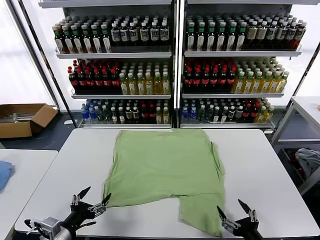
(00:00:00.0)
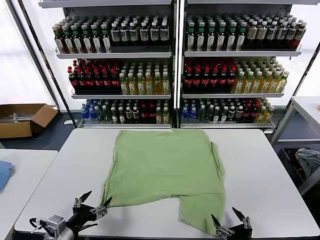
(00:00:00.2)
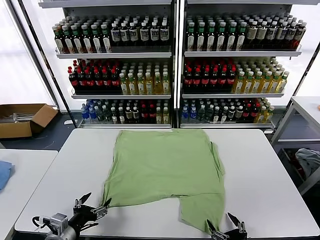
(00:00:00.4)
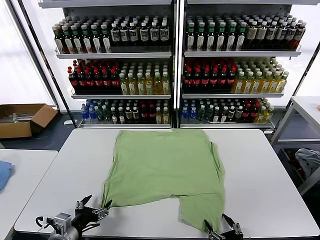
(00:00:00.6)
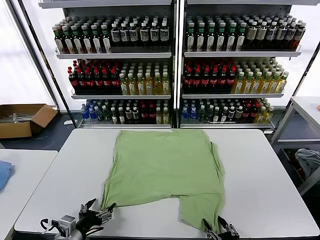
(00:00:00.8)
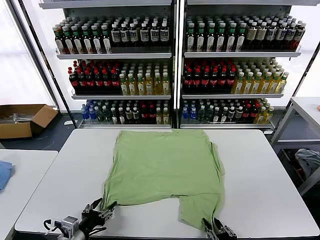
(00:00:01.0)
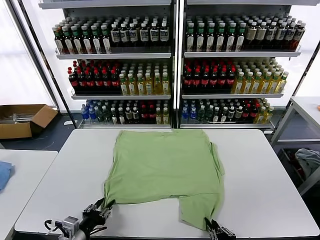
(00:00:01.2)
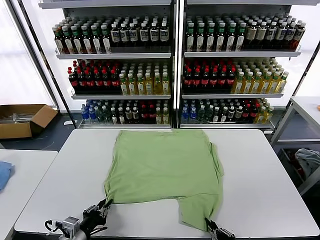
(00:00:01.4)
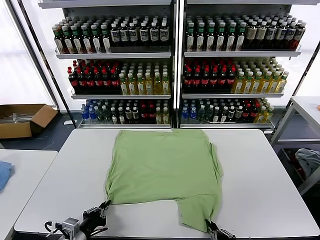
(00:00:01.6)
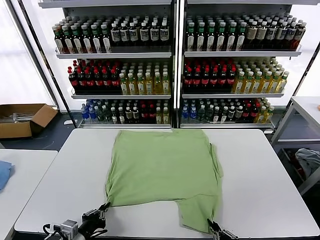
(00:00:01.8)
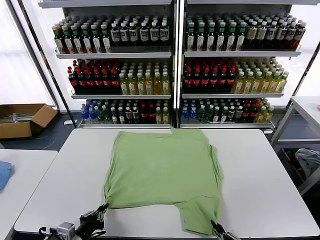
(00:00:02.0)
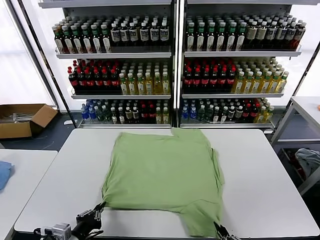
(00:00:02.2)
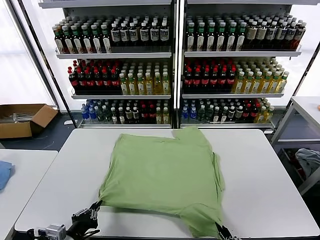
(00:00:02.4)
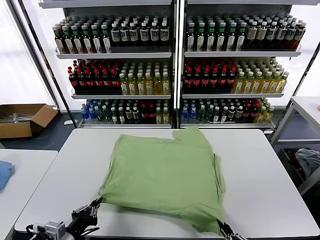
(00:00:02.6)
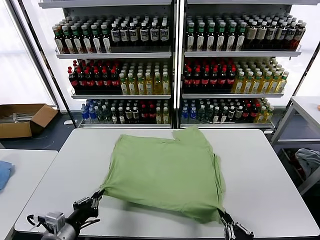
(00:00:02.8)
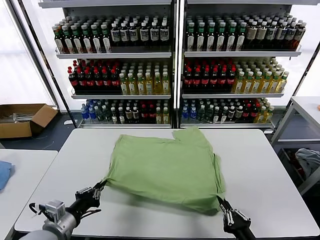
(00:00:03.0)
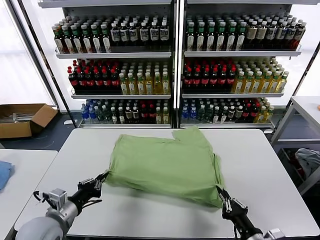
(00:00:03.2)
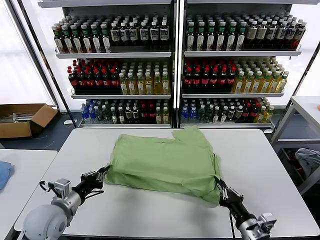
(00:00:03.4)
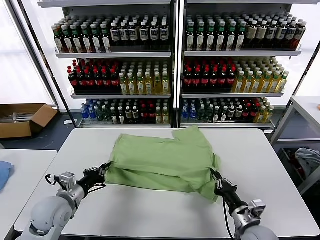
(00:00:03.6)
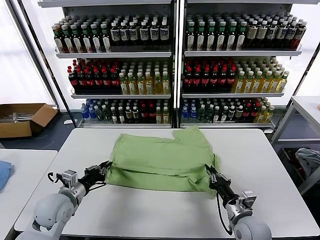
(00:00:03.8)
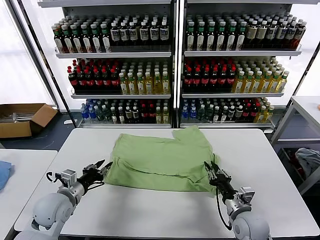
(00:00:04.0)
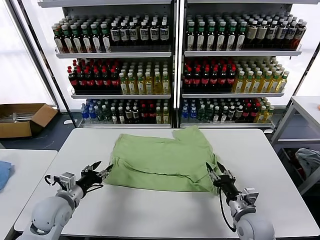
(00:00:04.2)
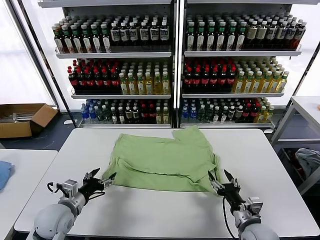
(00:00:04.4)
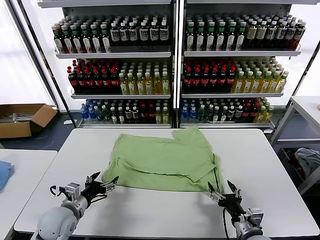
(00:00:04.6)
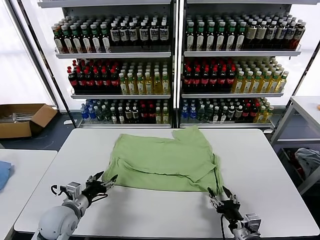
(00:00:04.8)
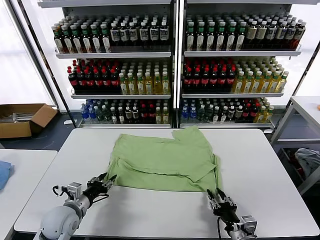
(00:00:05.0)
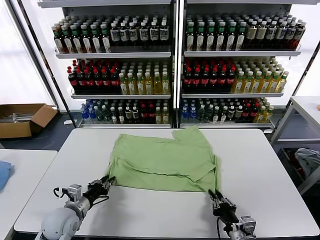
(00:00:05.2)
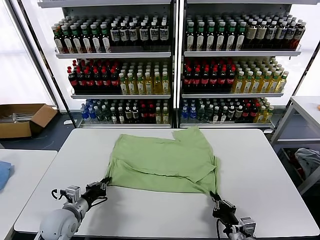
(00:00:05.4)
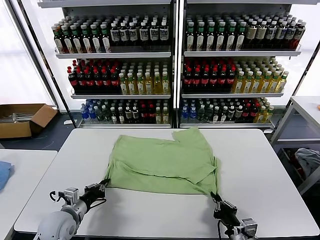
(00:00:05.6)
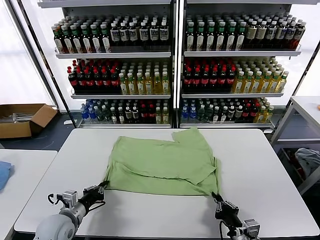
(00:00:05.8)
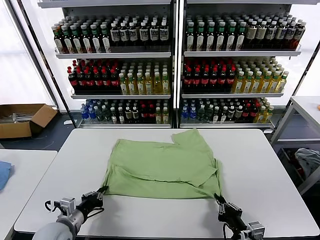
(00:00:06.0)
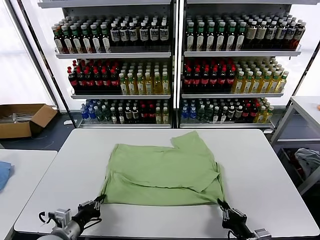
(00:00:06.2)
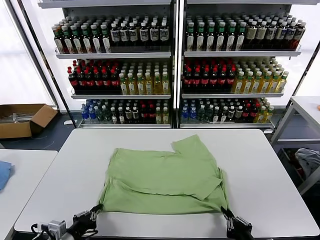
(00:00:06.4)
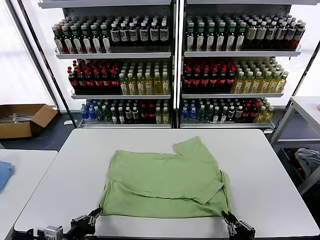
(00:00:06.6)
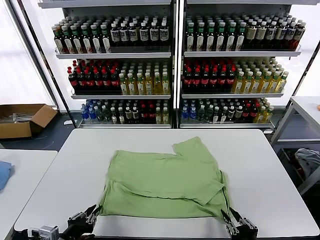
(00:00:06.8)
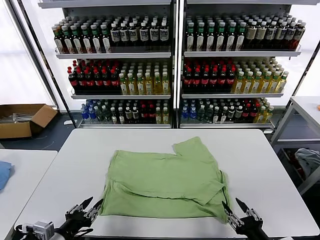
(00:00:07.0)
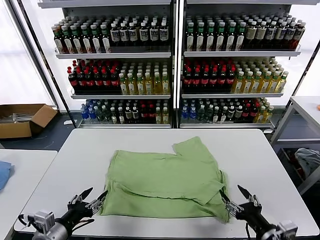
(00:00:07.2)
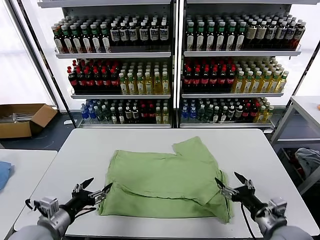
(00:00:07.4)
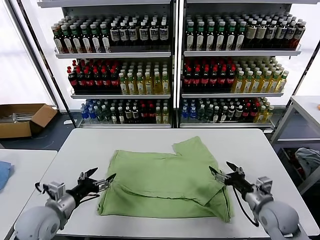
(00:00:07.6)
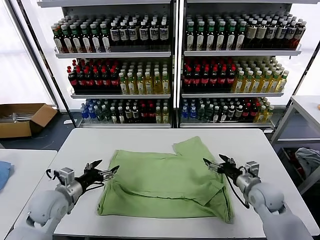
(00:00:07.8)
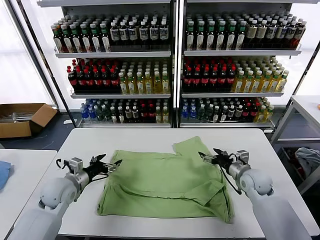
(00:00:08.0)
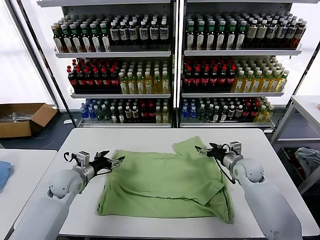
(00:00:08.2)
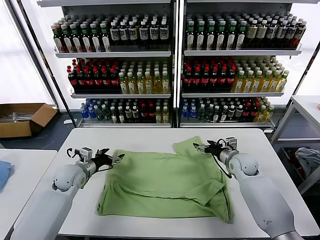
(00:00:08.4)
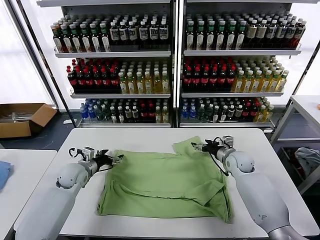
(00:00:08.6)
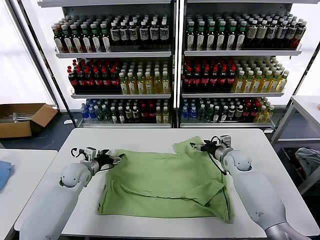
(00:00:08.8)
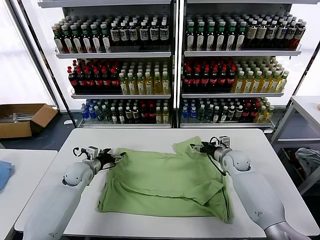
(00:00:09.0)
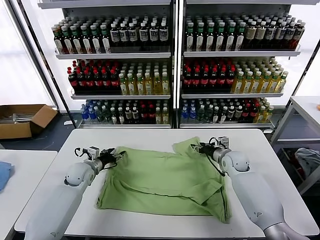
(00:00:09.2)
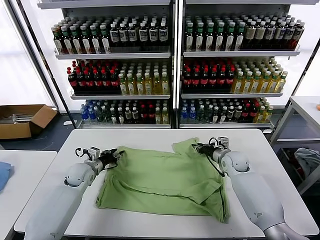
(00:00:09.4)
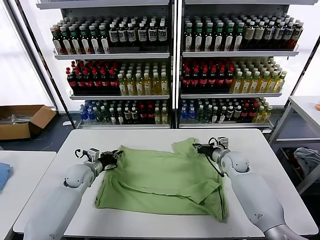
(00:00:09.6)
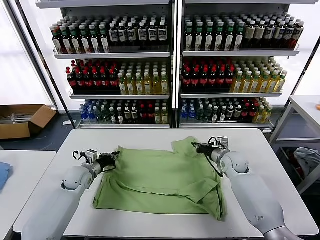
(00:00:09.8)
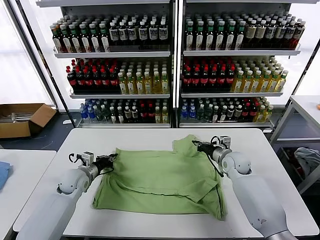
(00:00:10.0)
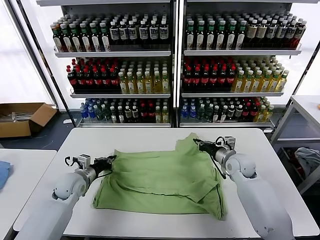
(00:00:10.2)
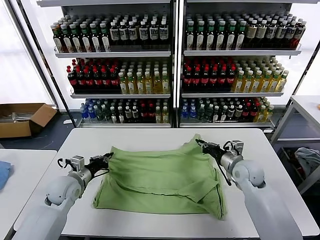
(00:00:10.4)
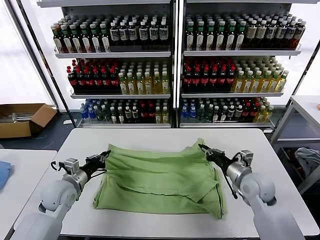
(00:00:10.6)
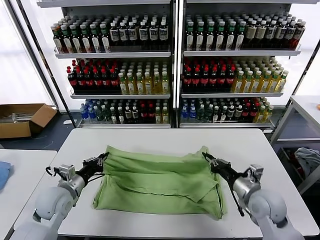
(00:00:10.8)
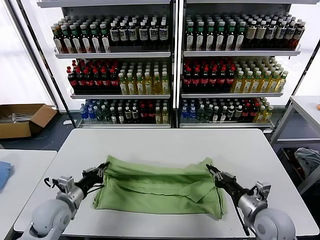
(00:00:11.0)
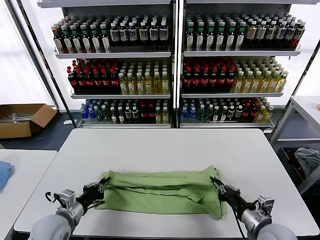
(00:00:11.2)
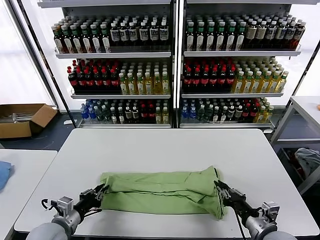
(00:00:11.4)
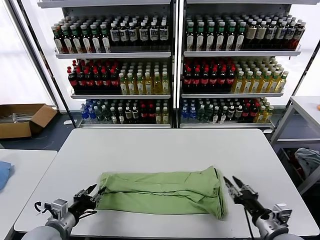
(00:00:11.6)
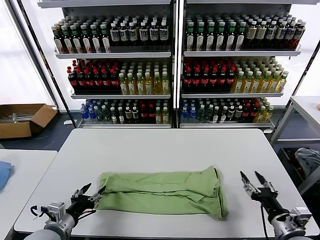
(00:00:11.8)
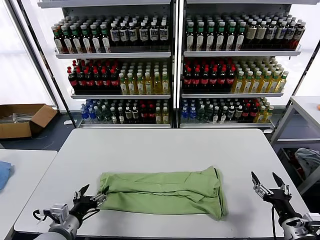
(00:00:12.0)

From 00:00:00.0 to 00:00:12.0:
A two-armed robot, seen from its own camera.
Task of the whole recording: fold and organize the clothes.
Step, from 00:00:00.0 to 00:00:01.6: use both grippers simultaneously to clamp the lower edge of the clothing fabric.
Step, from 00:00:01.8 to 00:00:04.0: use both grippers to drag the lower edge of the fabric forward and fold it over the upper edge.
Step, from 00:00:04.4 to 00:00:07.0: Drag the clothes downward with both gripper.
Step, from 00:00:07.2 to 00:00:09.8: use both grippers simultaneously to clamp the upper edge of the clothing fabric.
Step, from 00:00:10.0 to 00:00:11.6: use both grippers to drag the upper edge of the fabric backward and fold it over the lower edge.
From 00:00:01.6 to 00:00:03.0: The left gripper moves upward, approximately 10 cm; the right gripper goes approximately 5 cm forward.
From 00:00:03.0 to 00:00:04.4: The left gripper is displaced forward and downward by roughly 10 cm, and opens its fingers. The right gripper travels forward by approximately 5 cm, and opens its fingers.
From 00:00:04.4 to 00:00:06.0: The right gripper moves backward, roughly 5 cm, and closes up. The left gripper moves approximately 5 cm, and closes.
From 00:00:06.0 to 00:00:07.6: The right gripper goes roughly 20 cm forward, and opens up. The left gripper goes about 5 cm upward, moves approximately 10 cm backward and comes back, and opens its fingers.
From 00:00:07.6 to 00:00:09.0: The two grippers go some 20 cm forward.
From 00:00:09.0 to 00:00:10.4: The left gripper goes roughly 10 cm backward, and closes up; the right gripper heads backward and upward, covering approximately 15 cm, and closes.
From 00:00:10.4 to 00:00:12.0: The grippers both shift backward by roughly 20 cm. The left gripper opens. The right gripper opens its fingers.

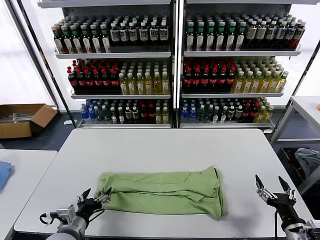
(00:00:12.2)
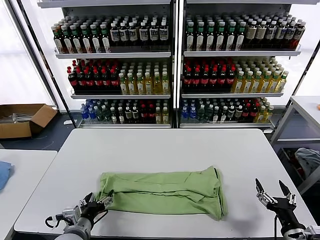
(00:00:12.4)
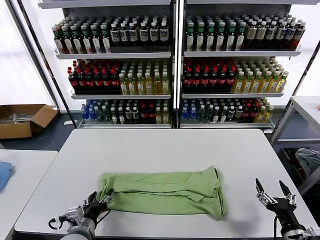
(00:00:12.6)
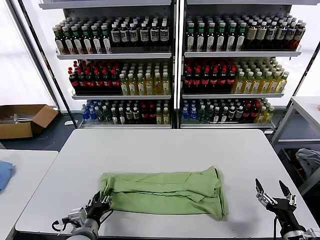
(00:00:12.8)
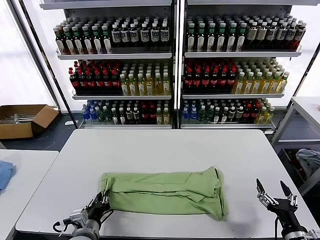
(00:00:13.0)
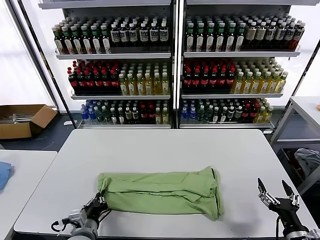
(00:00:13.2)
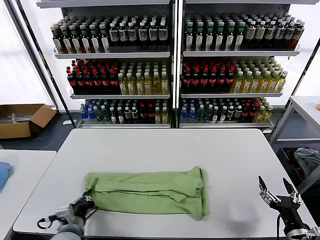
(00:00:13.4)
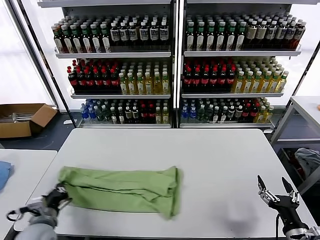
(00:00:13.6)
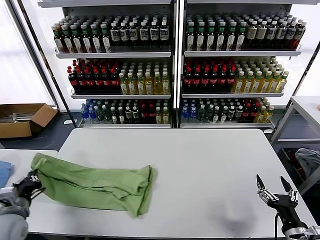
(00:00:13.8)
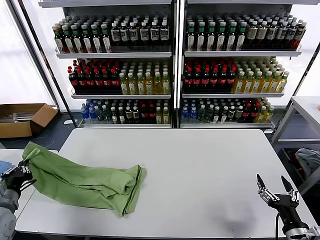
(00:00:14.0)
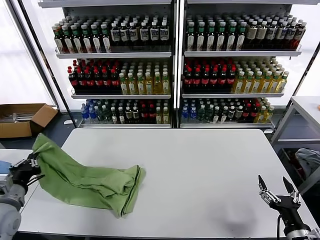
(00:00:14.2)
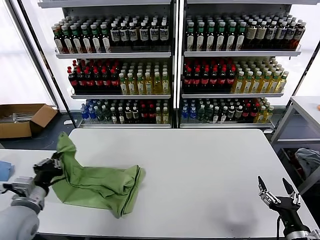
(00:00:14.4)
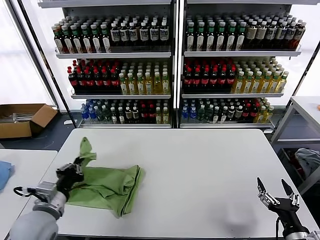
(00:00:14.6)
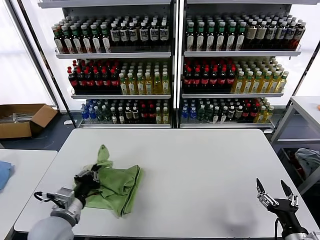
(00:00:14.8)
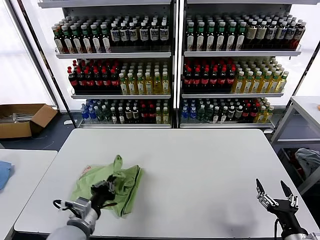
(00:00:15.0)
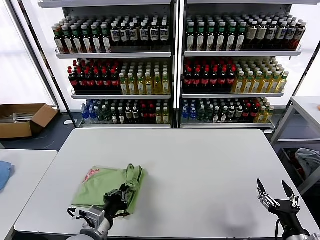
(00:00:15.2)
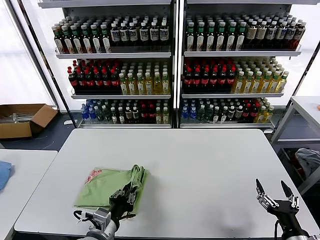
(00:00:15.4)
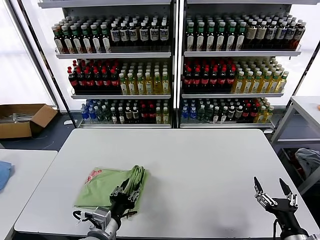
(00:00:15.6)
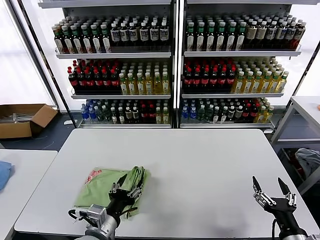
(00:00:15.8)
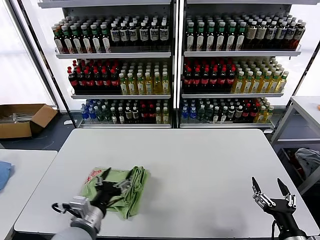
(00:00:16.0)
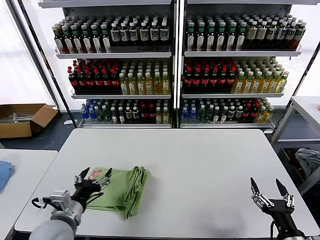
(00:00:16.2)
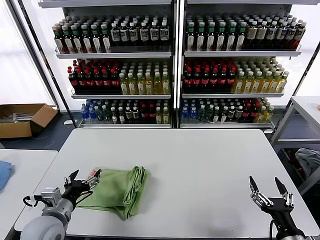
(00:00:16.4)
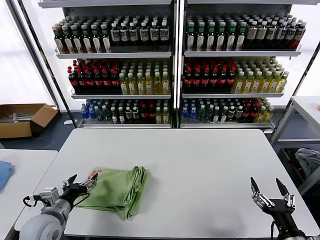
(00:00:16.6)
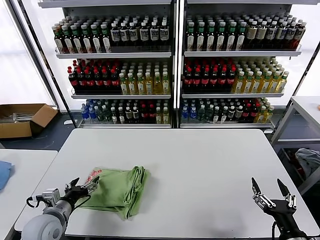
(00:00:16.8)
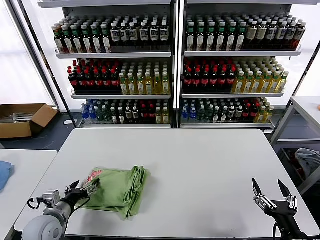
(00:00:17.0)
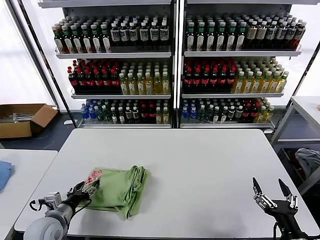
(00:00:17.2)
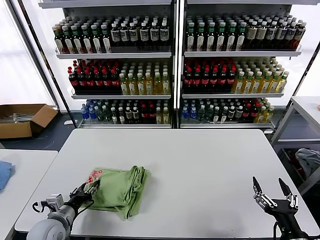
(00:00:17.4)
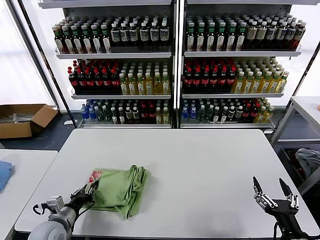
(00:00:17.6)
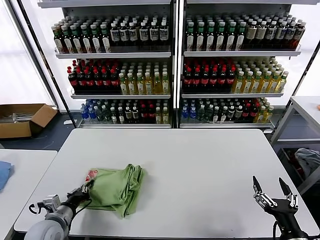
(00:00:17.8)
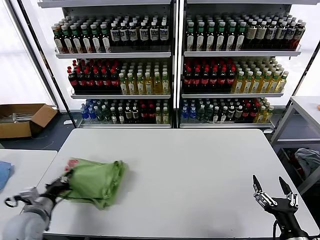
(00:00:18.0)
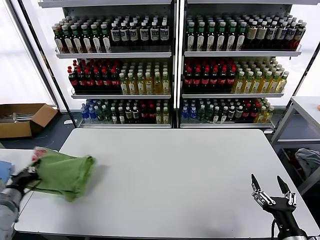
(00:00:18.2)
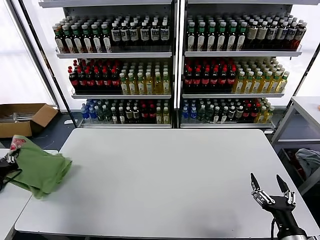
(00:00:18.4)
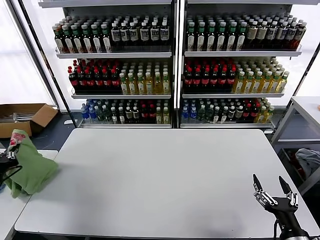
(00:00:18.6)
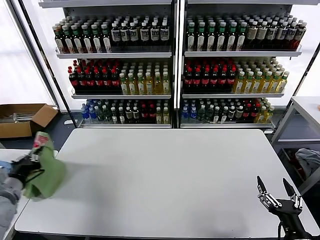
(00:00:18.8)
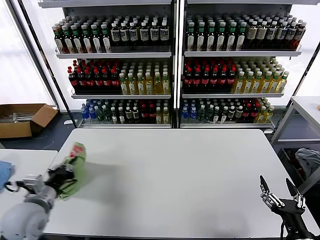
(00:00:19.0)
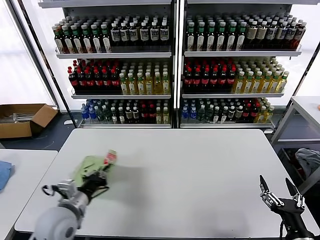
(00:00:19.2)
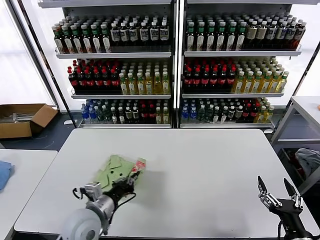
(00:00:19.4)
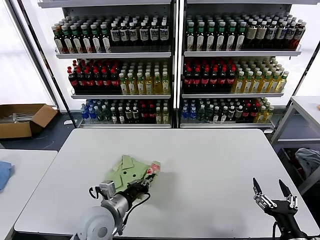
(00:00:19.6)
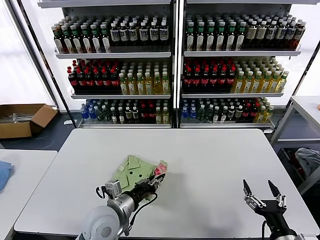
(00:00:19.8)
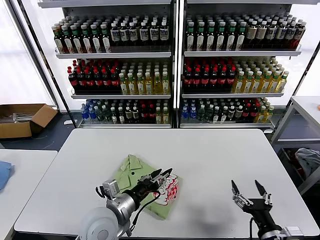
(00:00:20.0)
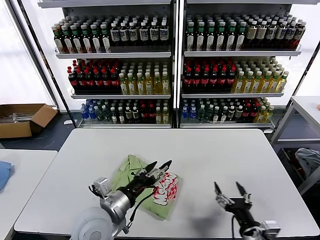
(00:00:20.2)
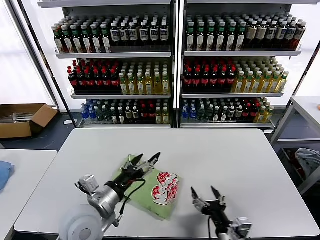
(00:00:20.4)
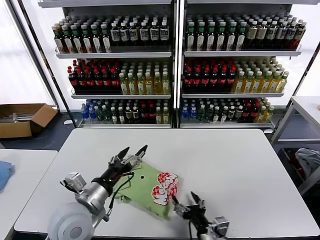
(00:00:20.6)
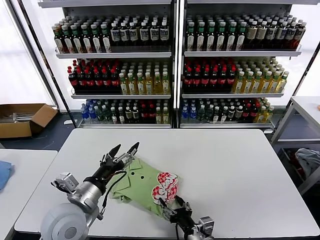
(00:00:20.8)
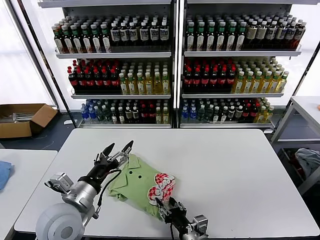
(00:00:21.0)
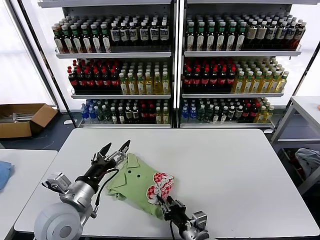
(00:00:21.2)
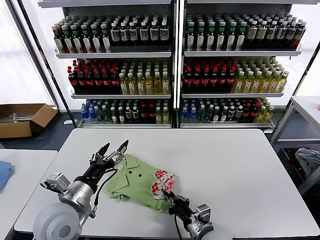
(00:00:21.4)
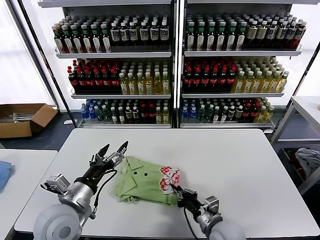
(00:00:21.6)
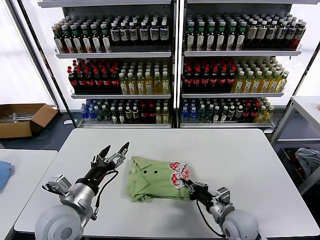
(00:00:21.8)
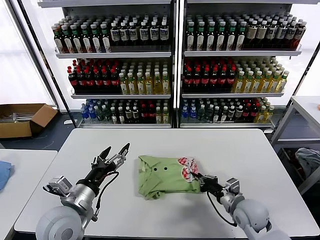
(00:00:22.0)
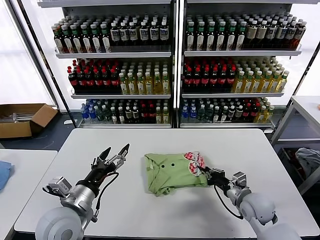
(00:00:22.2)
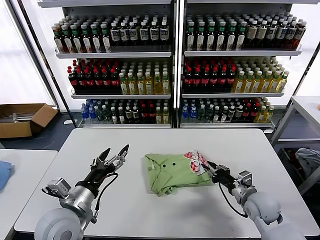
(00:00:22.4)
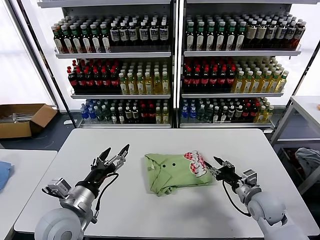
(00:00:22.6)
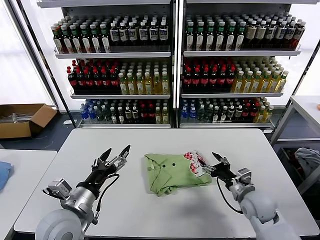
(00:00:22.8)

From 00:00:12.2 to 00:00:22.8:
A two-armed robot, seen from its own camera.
Task of the whole recording: fold and organize the clothes.
Step, from 00:00:12.2 to 00:00:13.2: use the left gripper to clamp the left edge of the fabric.
Step, from 00:00:13.4 to 00:00:15.6: use the left gripper to drag the left edge of the fabric to the left and folds it over the right edge.
Step, from 00:00:15.8 to 00:00:20.0: Flip the folded clothes over with left gripper.
From 00:00:12.2 to 00:00:13.8: The left gripper moves to the left, approximately 15 cm, and closes.
From 00:00:13.8 to 00:00:15.2: The left gripper is displaced to the right by approximately 20 cm.
From 00:00:15.2 to 00:00:16.8: The left gripper moves to the left and forward, roughly 15 cm, and opens.
From 00:00:16.8 to 00:00:18.2: The left gripper moves to the left, approximately 10 cm, and closes.
From 00:00:18.2 to 00:00:19.8: The left gripper heads to the right, covering some 30 cm.
From 00:00:19.8 to 00:00:21.2: The left gripper shifts about 10 cm to the left and upward, and opens up. The right gripper is displaced to the left, downward and forward by some 20 cm, and closes its fingers.
From 00:00:21.2 to 00:00:22.8: The right gripper is displaced to the right and forward by roughly 20 cm, and opens up.
